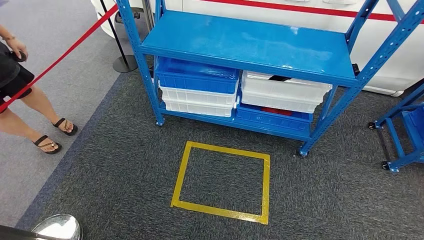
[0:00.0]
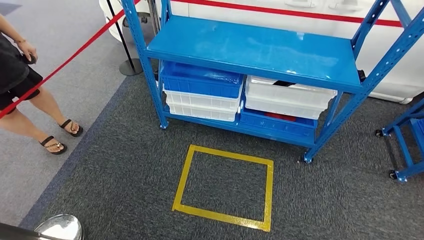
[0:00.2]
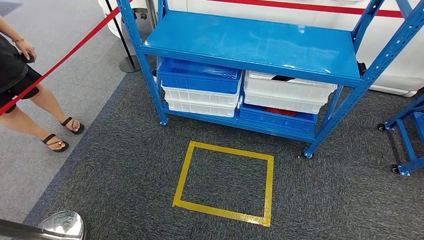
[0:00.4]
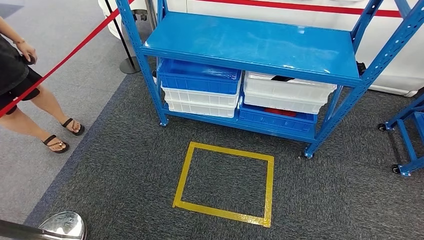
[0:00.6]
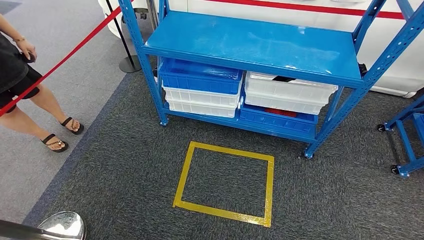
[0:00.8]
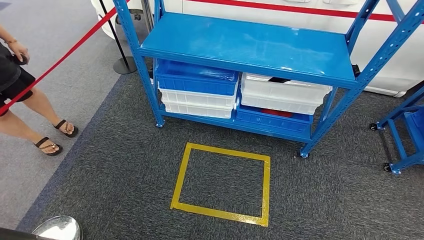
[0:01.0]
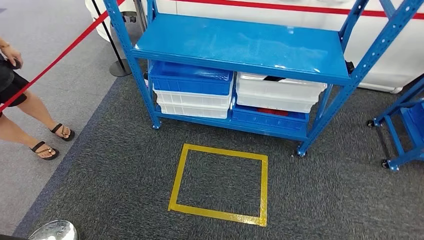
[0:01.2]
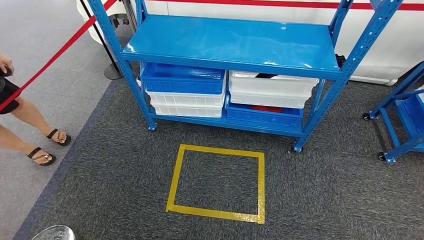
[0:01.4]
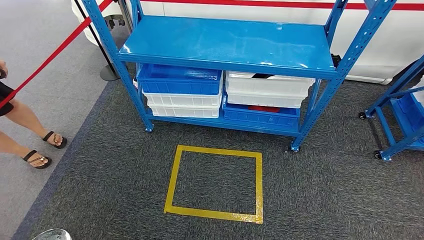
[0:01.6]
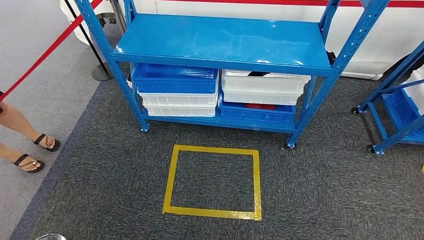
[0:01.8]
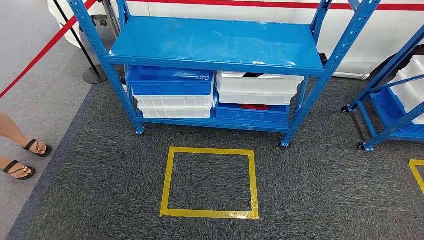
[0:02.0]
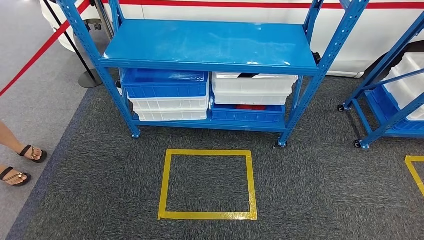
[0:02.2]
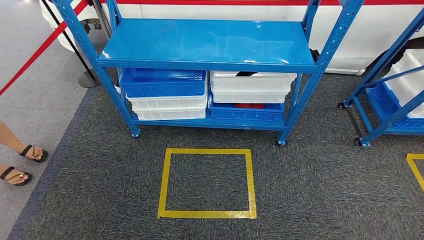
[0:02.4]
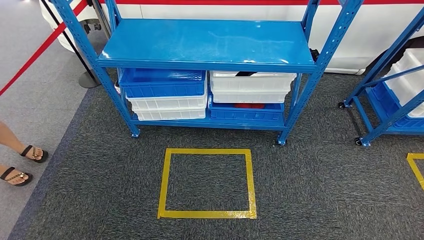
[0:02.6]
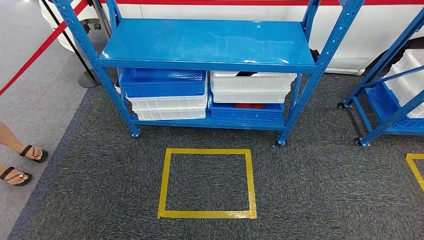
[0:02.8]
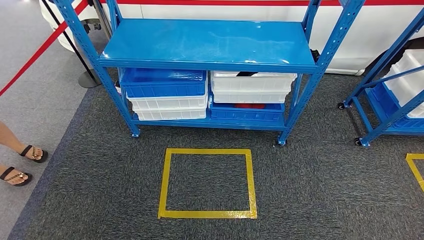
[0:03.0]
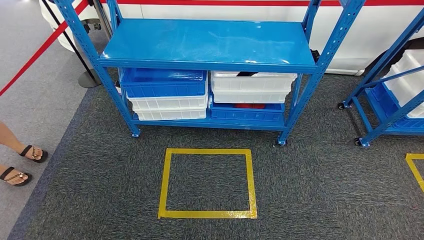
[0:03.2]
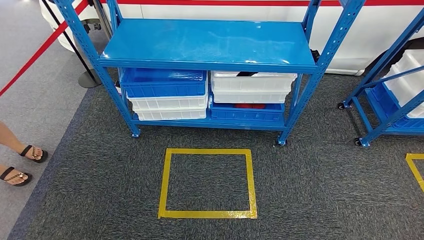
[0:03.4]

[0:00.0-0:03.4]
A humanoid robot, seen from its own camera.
Step, 0:00.0 to 0:03.4: Move to the initial position of the shelf.
